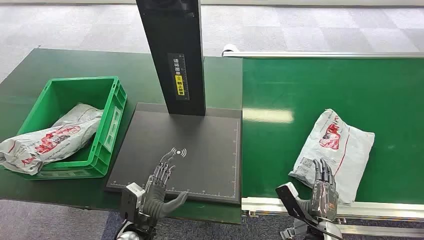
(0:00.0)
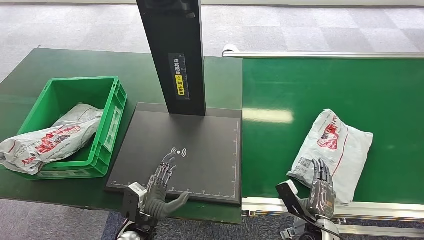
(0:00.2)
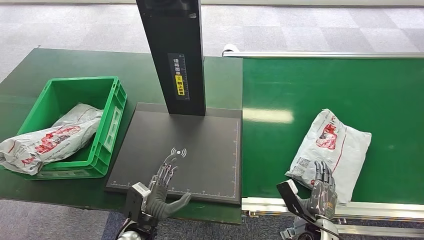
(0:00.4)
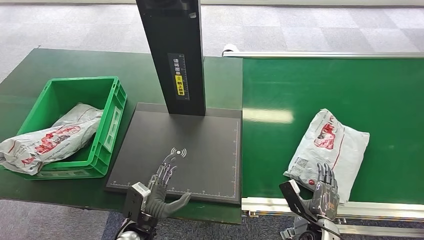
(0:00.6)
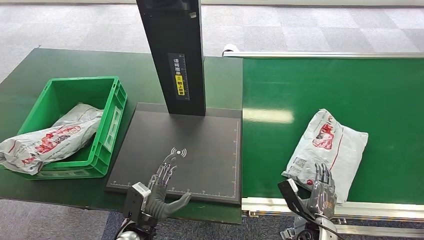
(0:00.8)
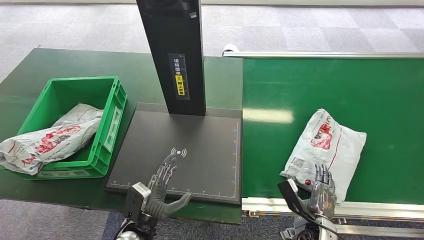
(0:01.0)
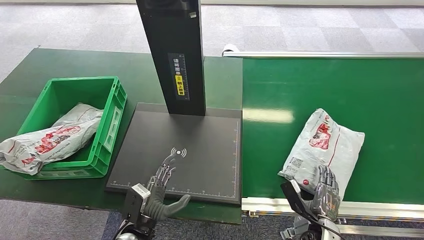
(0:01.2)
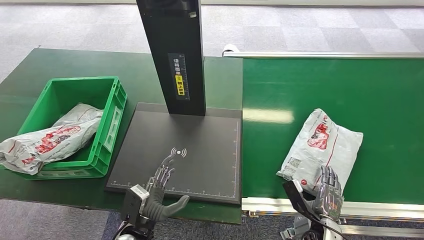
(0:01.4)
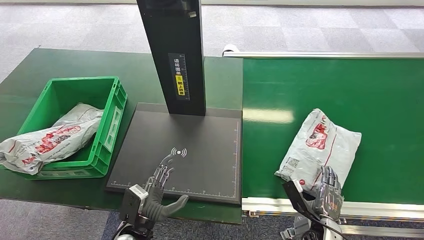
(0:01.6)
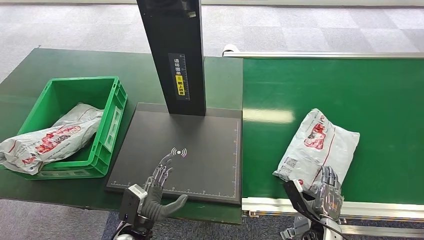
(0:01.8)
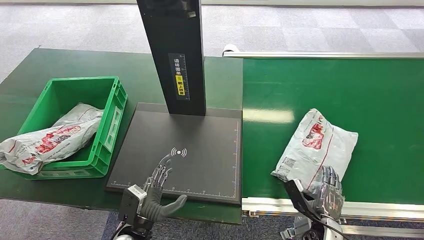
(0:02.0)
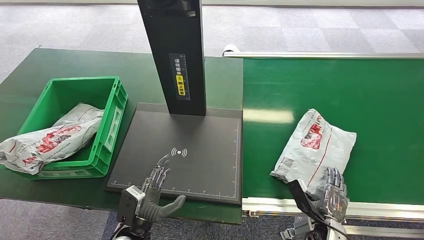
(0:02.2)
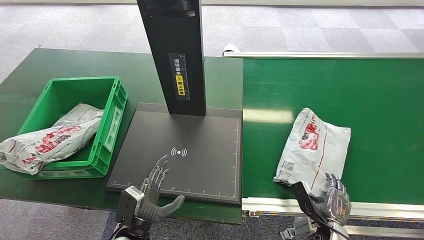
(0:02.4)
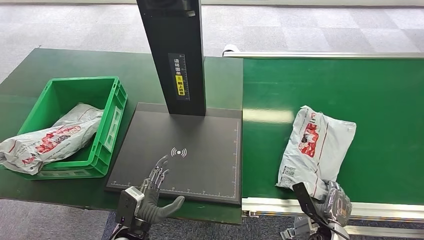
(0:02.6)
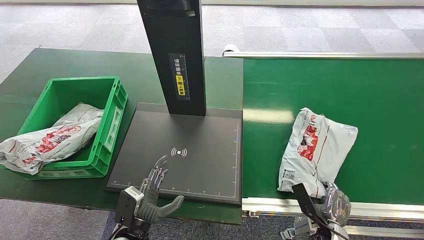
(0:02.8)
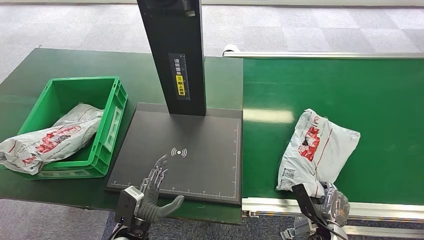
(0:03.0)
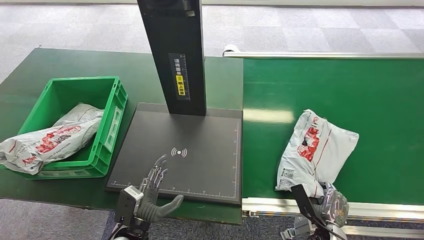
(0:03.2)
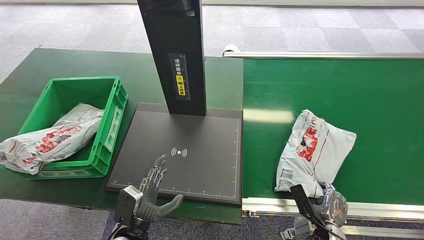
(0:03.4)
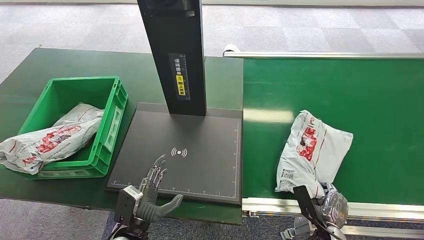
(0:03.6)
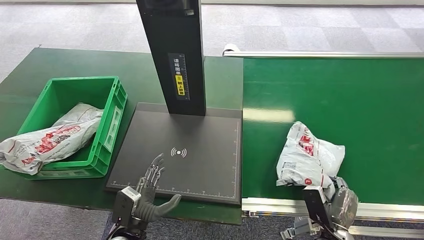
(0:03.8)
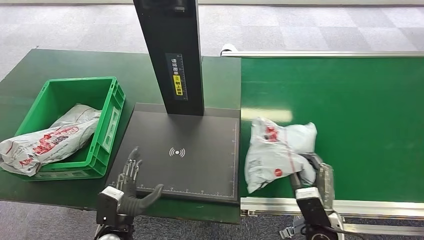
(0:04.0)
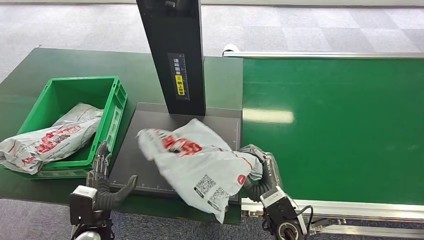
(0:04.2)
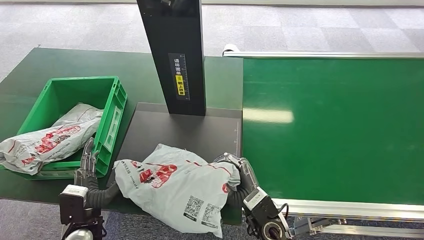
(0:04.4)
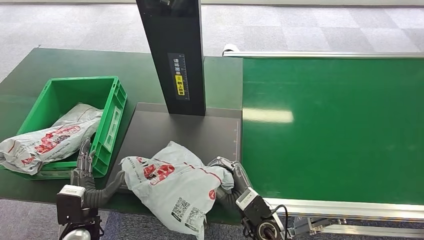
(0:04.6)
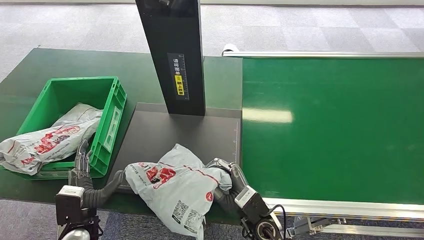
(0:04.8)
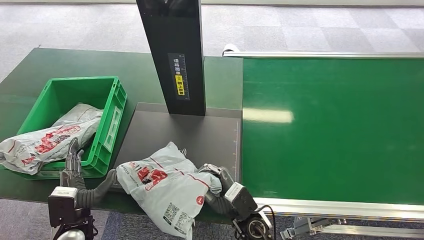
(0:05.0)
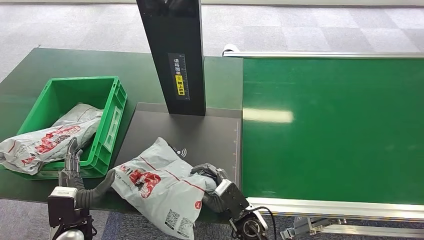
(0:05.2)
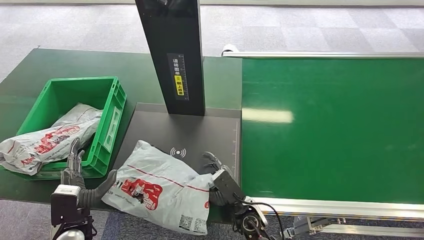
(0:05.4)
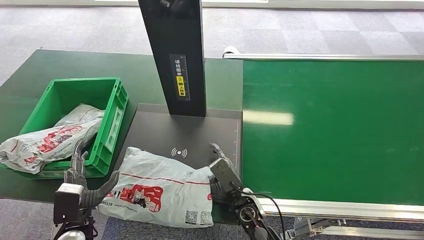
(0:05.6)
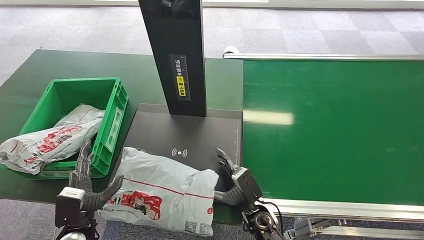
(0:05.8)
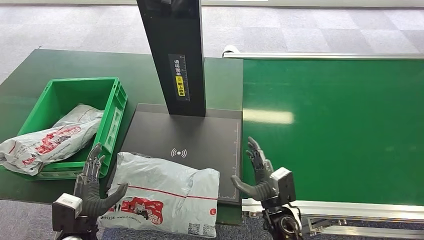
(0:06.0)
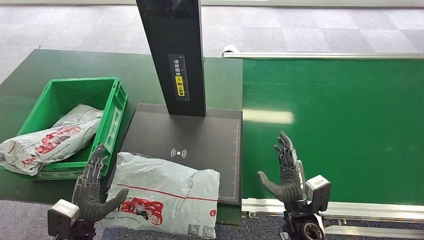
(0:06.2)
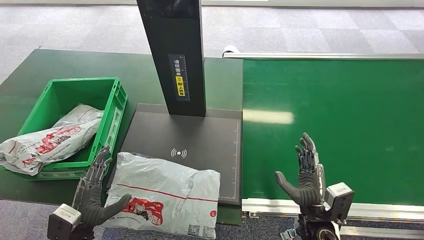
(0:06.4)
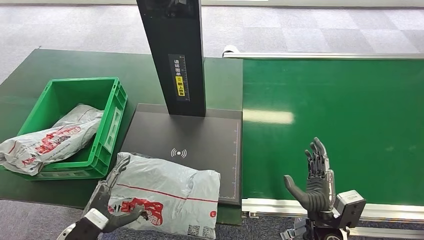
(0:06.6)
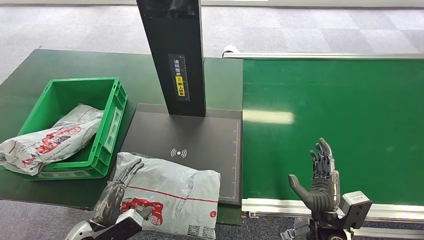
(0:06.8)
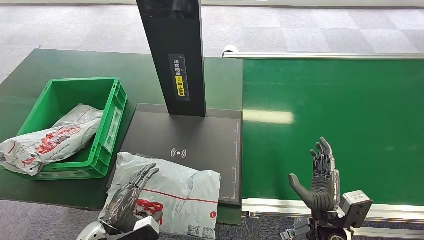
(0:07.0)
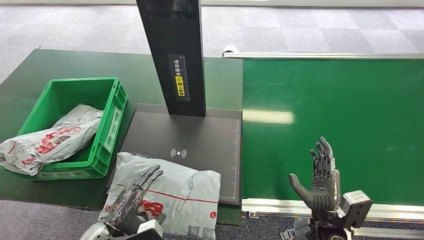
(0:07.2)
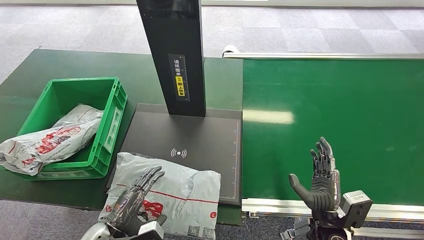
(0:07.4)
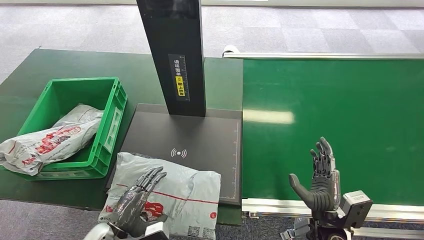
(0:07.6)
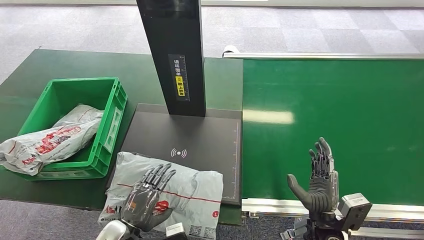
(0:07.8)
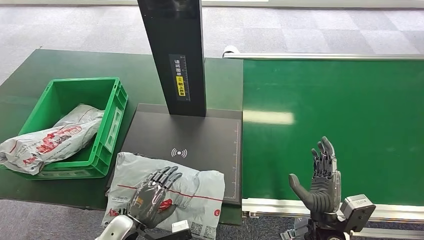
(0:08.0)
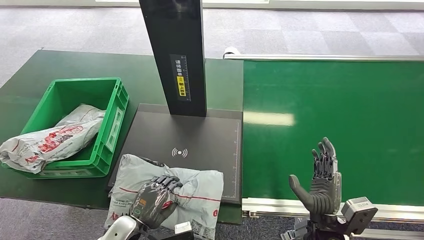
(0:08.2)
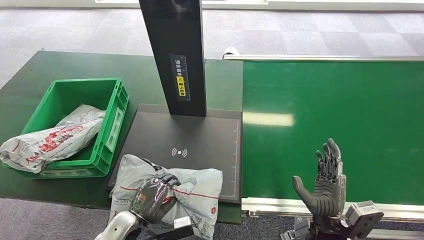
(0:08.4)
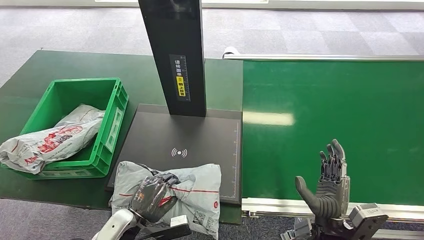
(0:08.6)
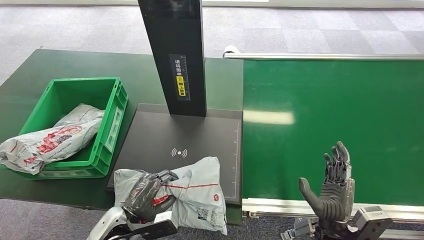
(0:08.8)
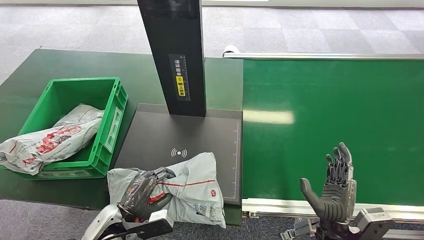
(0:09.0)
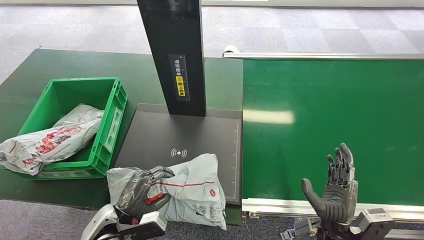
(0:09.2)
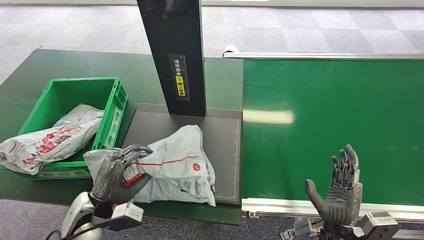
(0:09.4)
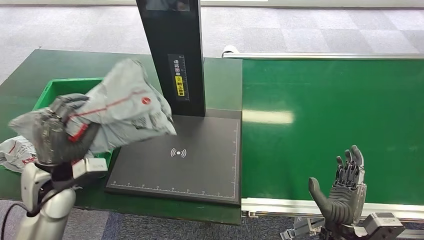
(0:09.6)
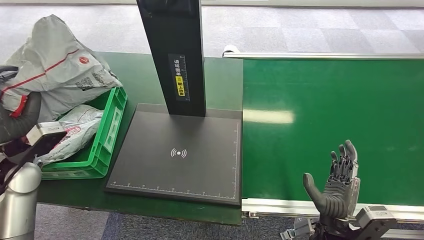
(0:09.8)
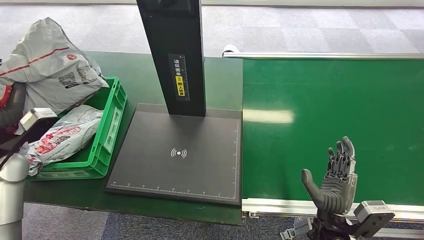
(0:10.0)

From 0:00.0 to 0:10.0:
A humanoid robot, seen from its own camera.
Step, from 0:00.0 to 0:04.4: Pick up the package from the conveyor belt.
Step, from 0:04.8 to 0:06.8: Place the package onto the inbound machine.
Step, from 0:07.0 to 0:09.8: Pick up the package from the inbound machine.
From 0:01.4 to 0:02.8: There are only small adjustments of the hands.
From 0:05.8 to 0:07.2: The left hand travels to the right by approximately 5 cm, while the right hand shifts approximately 15 cm to the right.
From 0:07.2 to 0:08.6: The left hand shifts by some 5 cm.

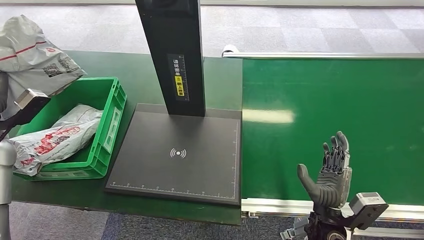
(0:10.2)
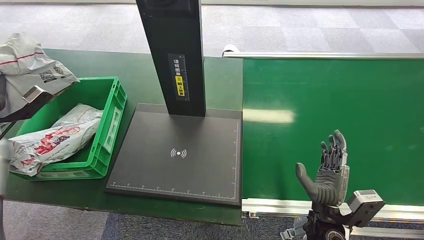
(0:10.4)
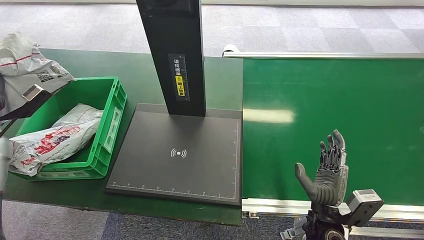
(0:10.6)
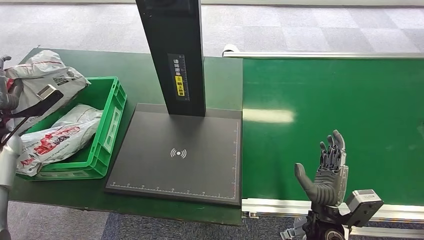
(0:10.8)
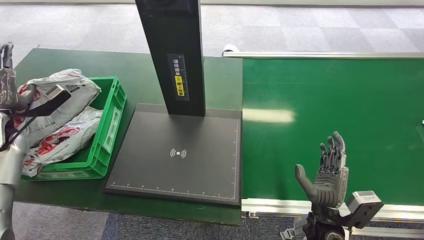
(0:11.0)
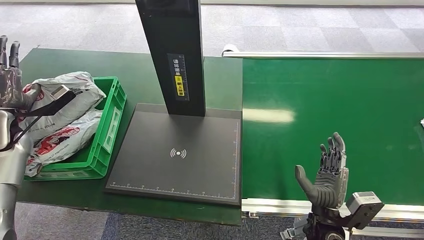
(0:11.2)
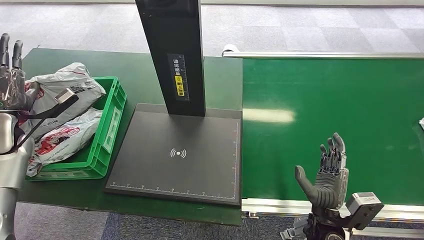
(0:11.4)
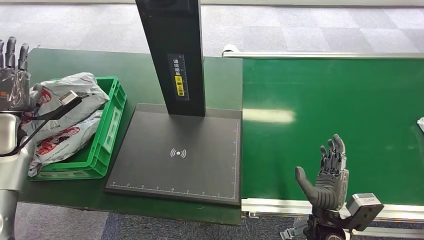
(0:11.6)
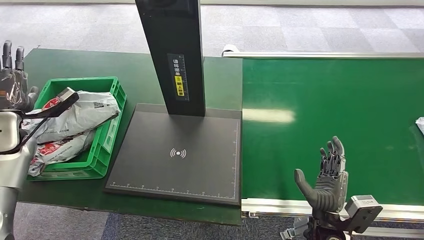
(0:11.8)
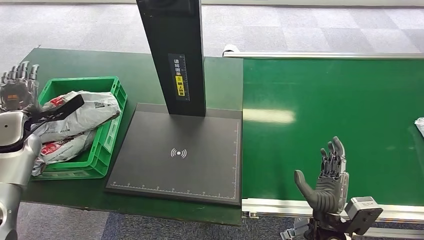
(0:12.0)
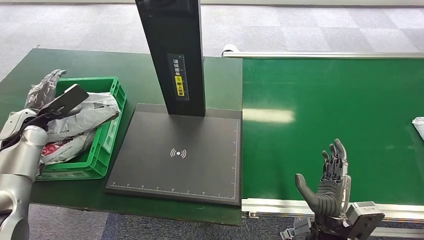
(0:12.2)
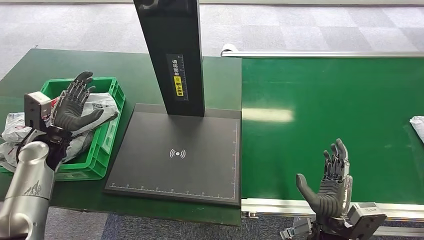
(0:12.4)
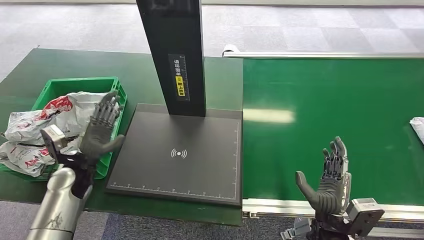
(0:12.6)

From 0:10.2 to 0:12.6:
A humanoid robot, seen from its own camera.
Step, from 0:10.2 to 0:12.4: Place the package into the parcel locker.
From 0:10.2 to 0:11.4: The left hand shifts by about 5 cm.
From 0:11.4 to 0:12.6: The left hand is displaced to the right and downward by approximately 20 cm.
